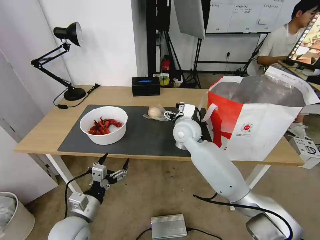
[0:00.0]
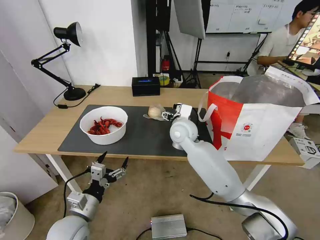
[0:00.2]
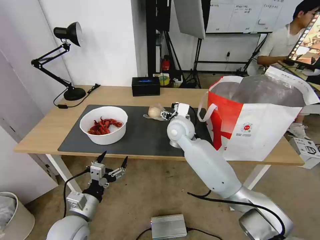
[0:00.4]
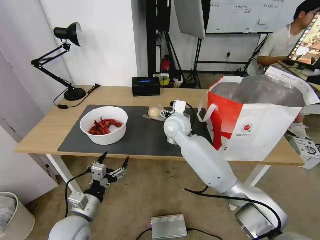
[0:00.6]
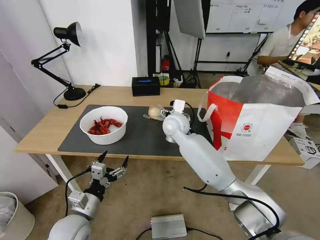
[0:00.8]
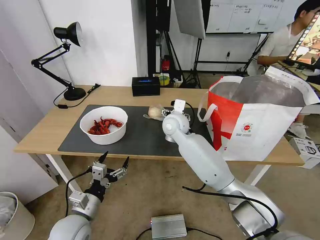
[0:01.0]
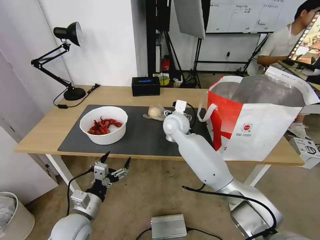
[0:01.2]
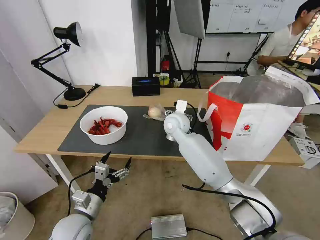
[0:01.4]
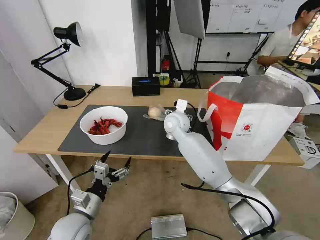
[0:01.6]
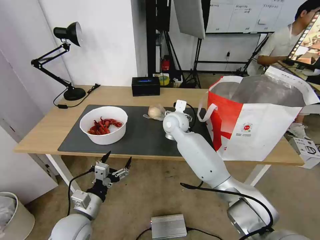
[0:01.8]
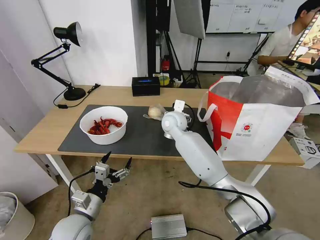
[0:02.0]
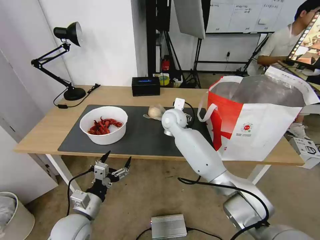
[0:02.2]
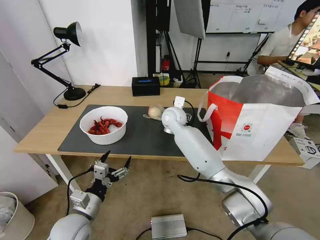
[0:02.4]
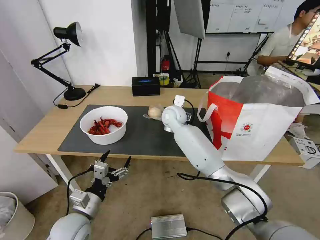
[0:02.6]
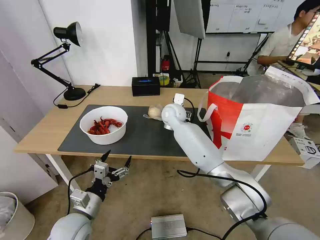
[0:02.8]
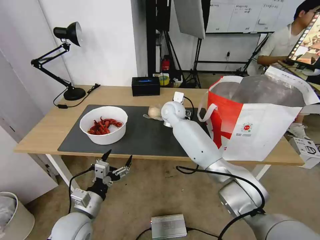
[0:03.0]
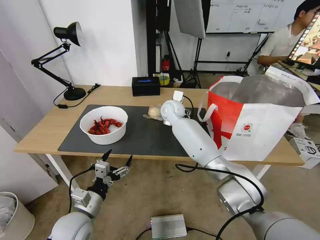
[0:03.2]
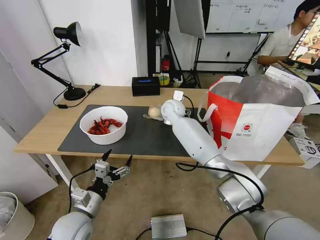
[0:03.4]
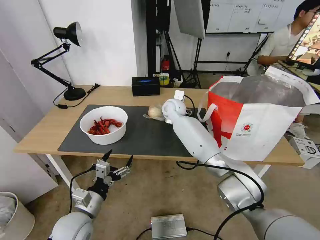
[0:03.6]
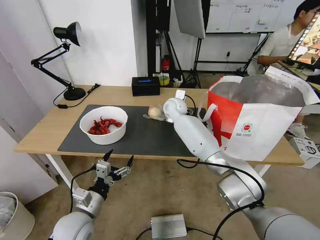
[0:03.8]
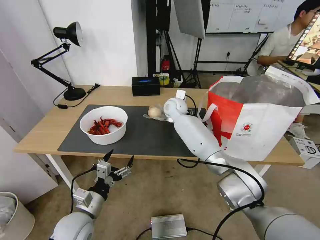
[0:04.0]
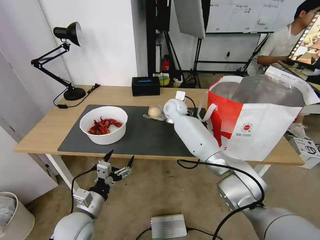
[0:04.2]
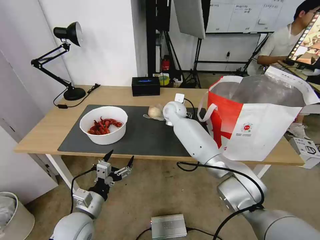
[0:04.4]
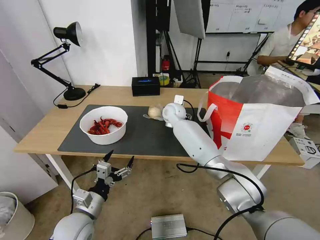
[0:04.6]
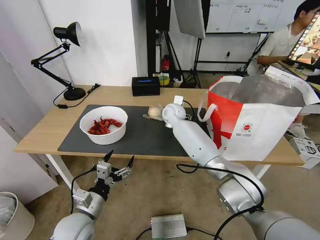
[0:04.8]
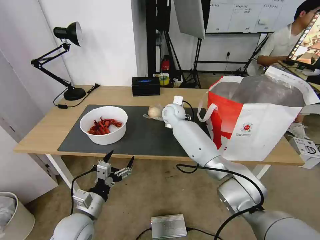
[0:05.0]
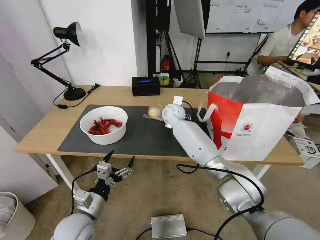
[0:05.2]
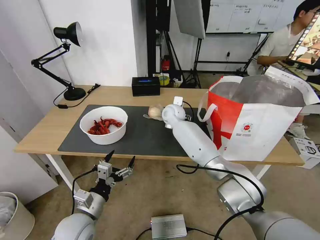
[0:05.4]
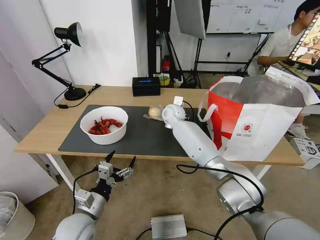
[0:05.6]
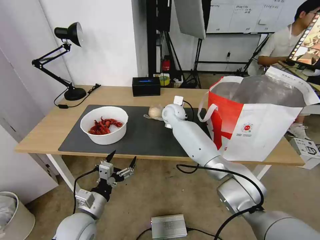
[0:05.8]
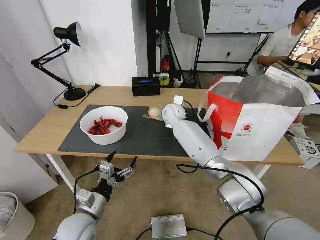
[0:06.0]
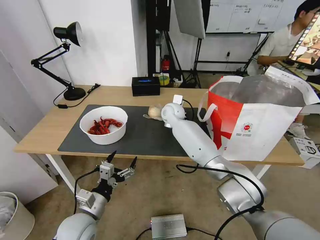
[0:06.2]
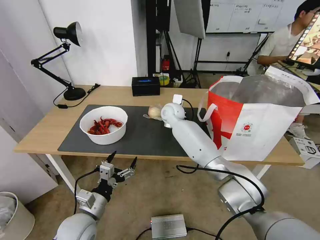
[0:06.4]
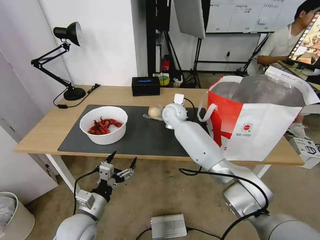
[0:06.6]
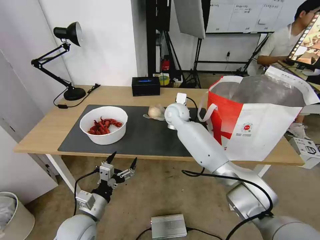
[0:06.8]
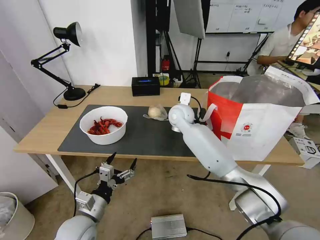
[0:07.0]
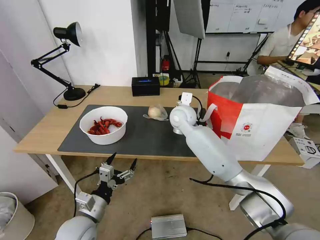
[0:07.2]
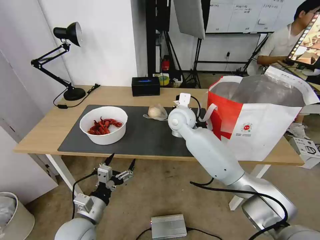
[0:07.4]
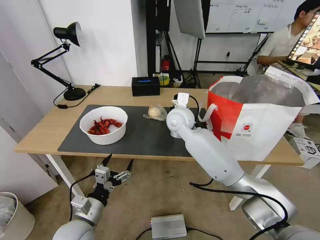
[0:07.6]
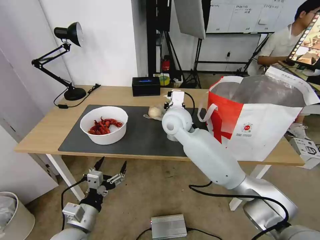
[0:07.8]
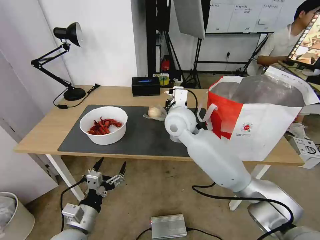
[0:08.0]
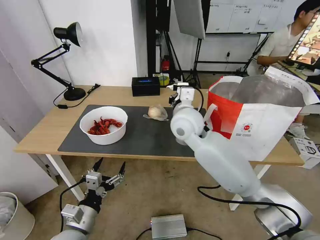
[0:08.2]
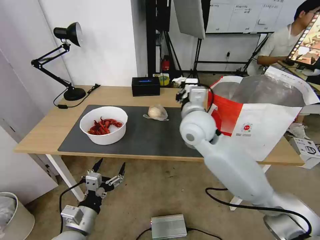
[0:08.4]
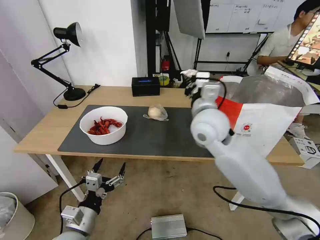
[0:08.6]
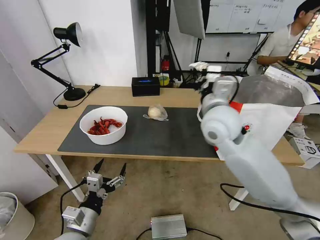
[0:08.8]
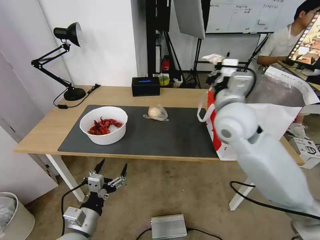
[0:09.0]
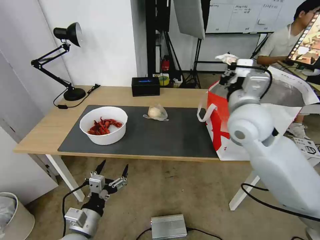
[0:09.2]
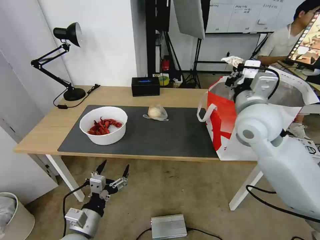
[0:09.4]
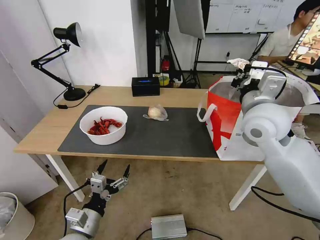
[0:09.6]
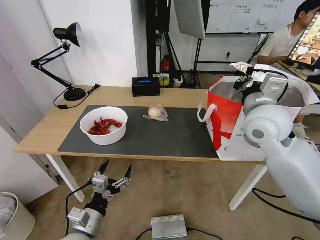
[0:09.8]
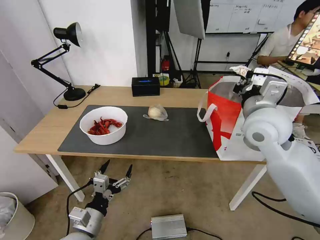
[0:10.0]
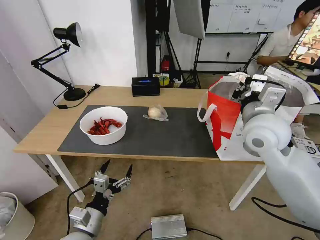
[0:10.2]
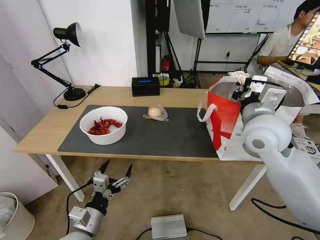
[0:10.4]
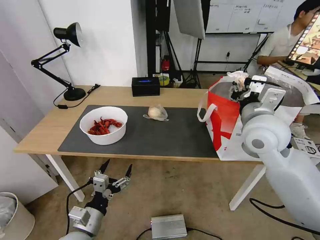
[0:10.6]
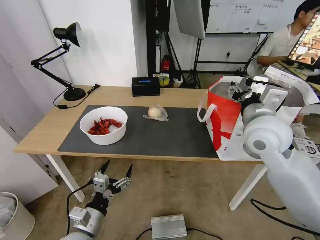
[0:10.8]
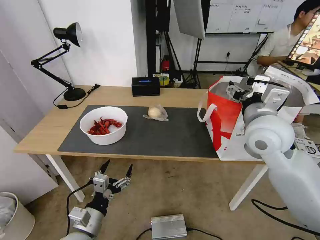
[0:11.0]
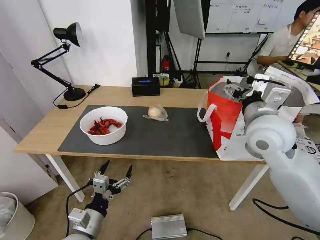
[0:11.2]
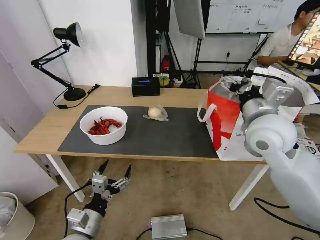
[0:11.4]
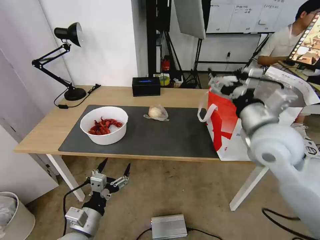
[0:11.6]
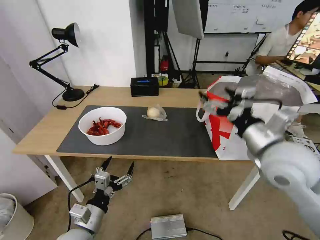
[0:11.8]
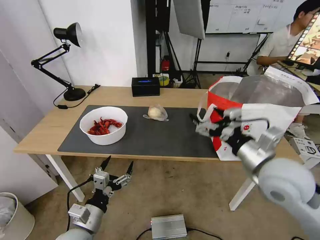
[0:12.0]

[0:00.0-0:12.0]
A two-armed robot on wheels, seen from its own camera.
Task of the whole recording: Pick up the trash from the table and place it into the takeout bag.
0:00.0 to 0:01.6: The right gripper changes place by some 5 cm.
0:01.6 to 0:03.0: The right gripper is displaced forward by some 5 cm.
0:03.0 to 0:04.4: The grippers move only a little.
0:04.4 to 0:06.0: The right gripper closes its fingers.
0:06.0 to 0:07.6: The right gripper moves backward and upward, some 10 cm.
0:07.6 to 0:09.0: The right gripper goes some 20 cm to the right, backward and upward.
0:09.0 to 0:10.4: The right gripper is displaced to the right by approximately 5 cm.
0:10.4 to 0:12.0: The right gripper heads backward and downward, covering approximately 10 cm, and opens up.

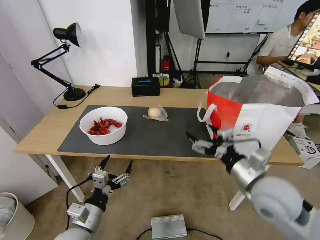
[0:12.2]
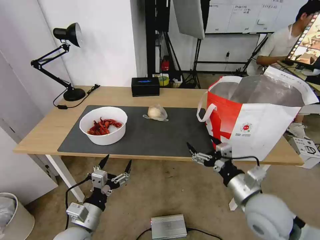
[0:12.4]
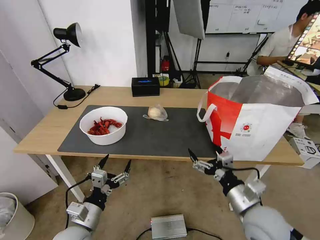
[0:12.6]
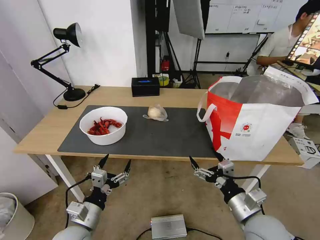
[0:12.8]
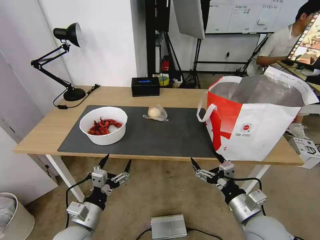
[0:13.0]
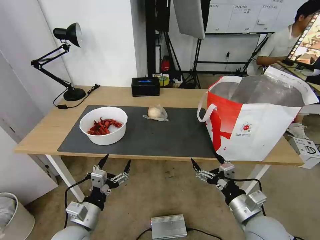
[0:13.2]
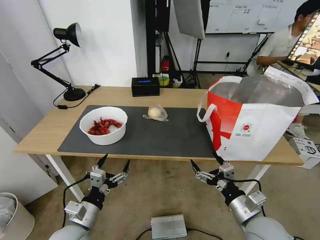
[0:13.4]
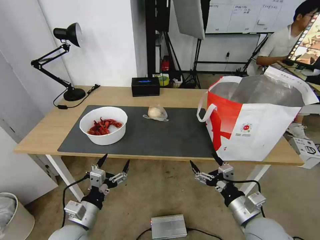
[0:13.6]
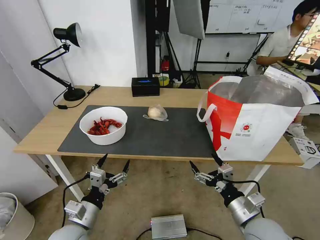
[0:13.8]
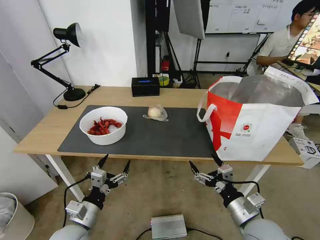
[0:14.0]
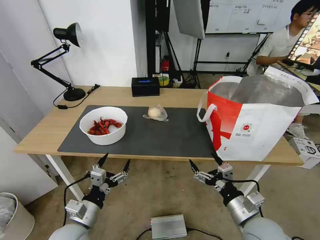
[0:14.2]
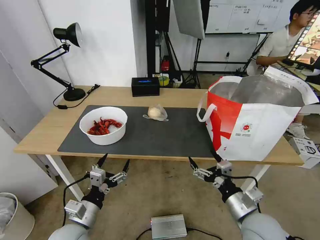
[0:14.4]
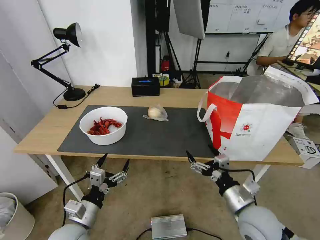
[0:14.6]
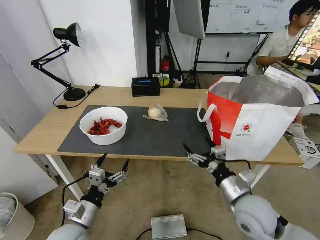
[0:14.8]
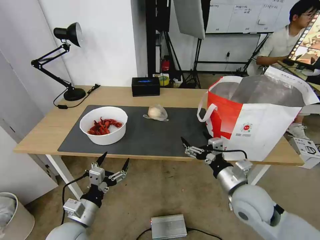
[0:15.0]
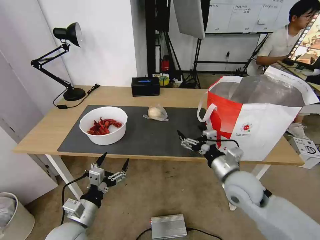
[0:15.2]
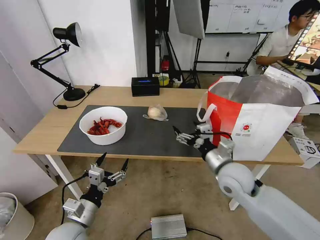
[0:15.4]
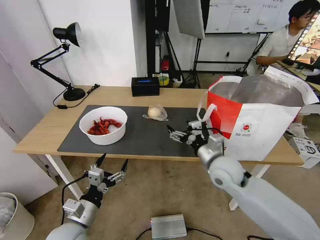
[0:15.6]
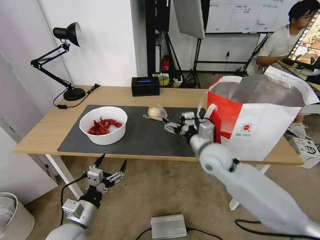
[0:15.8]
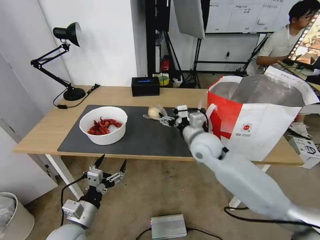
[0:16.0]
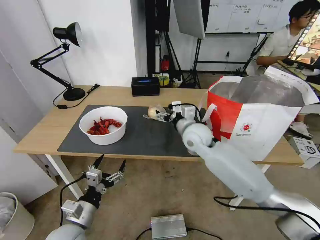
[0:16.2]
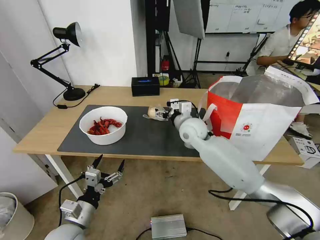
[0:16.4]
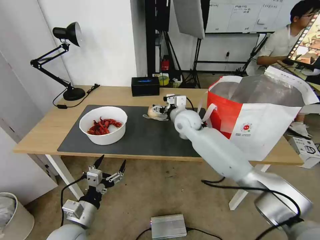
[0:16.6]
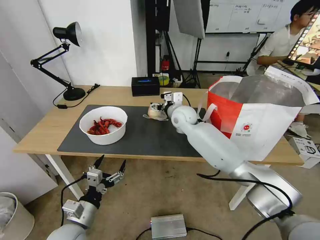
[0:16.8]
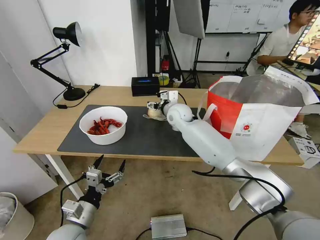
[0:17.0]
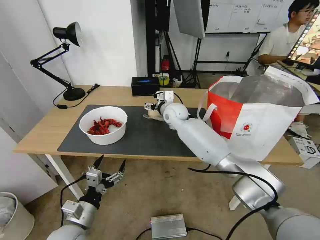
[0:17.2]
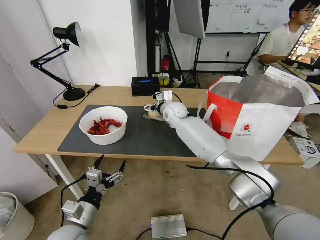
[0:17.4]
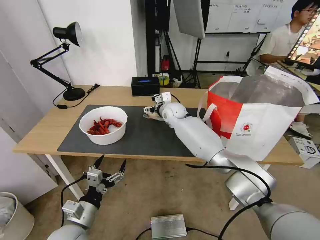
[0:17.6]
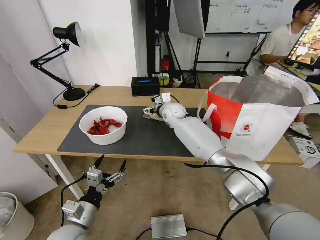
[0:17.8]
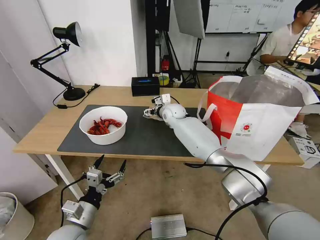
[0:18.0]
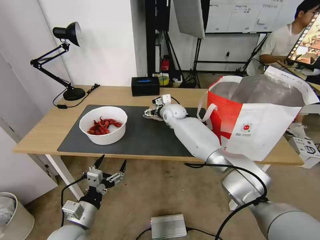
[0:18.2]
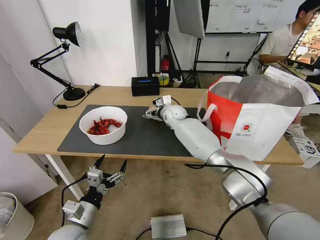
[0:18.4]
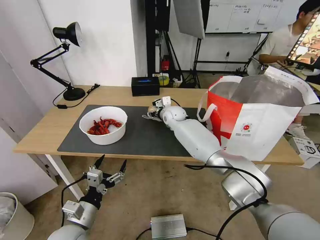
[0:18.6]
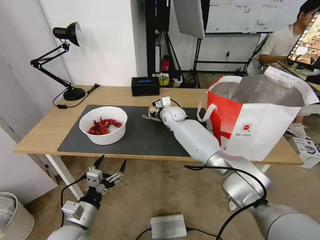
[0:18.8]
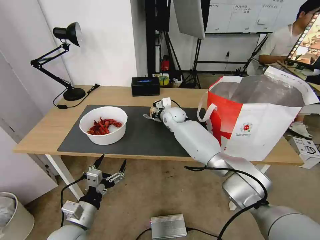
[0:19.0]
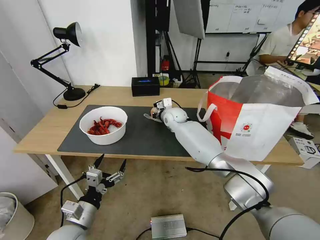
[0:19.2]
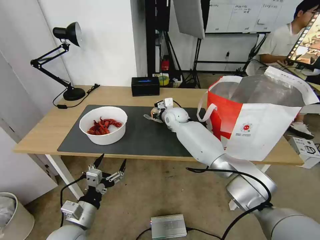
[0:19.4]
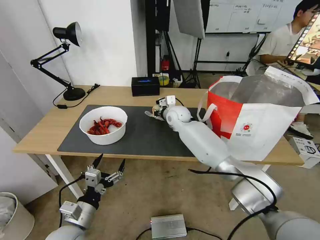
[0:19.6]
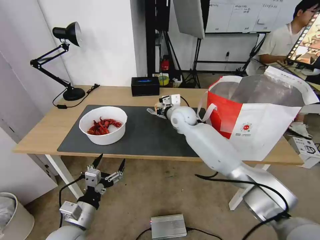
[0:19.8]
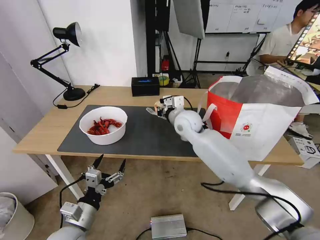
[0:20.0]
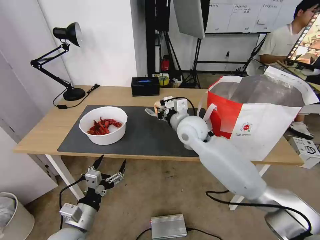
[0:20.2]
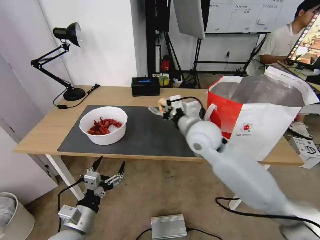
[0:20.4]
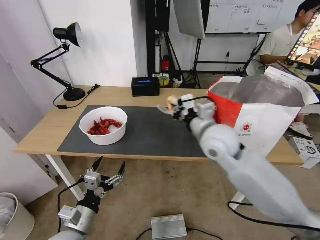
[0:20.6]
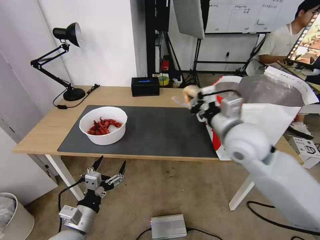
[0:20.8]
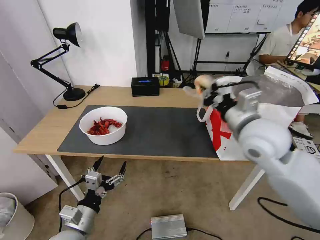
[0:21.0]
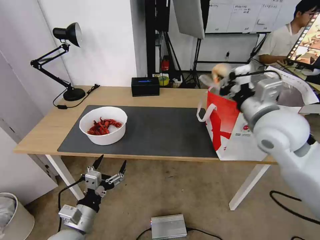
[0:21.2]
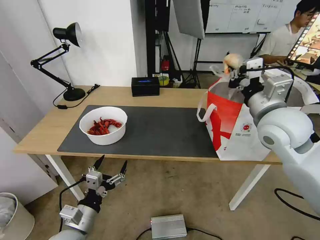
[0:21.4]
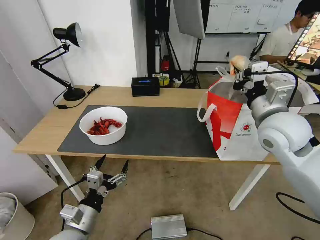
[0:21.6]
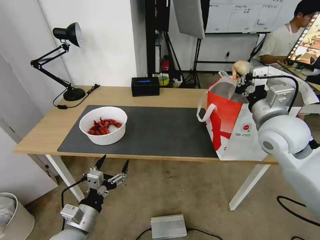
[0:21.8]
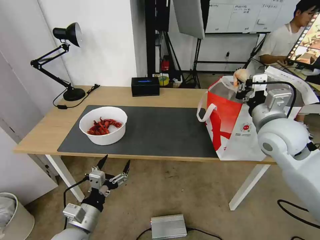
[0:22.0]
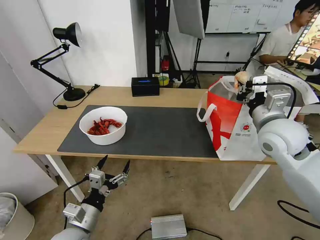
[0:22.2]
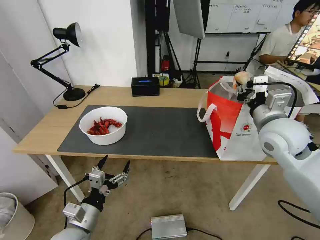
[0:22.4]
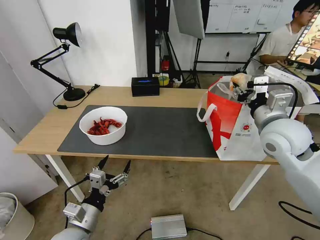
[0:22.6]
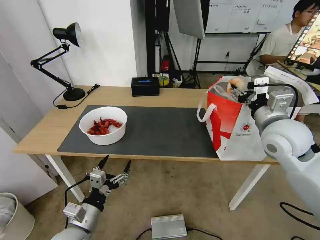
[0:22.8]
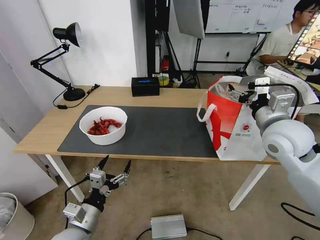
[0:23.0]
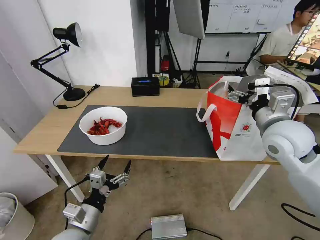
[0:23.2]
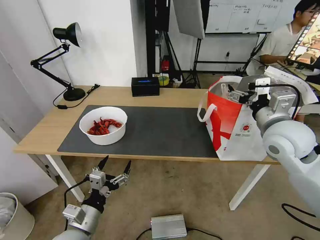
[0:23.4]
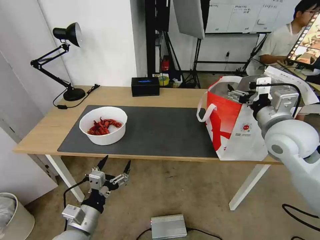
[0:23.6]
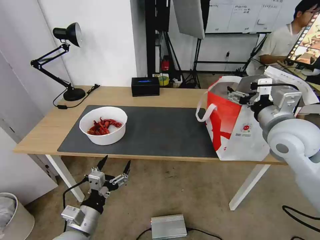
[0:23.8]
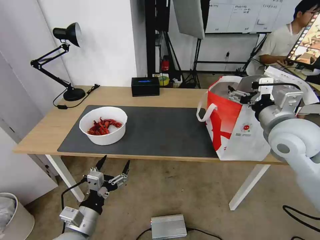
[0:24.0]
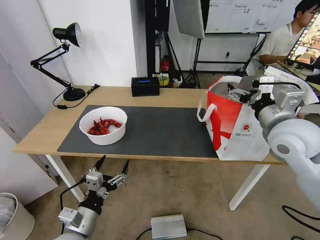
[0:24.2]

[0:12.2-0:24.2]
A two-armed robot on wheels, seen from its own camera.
Task of the whole recording: Pick up the trash from the table and place it into the takeout bag.
0:12.2 to 0:13.8: The right gripper heads downward and backward, covering approximately 15 cm.
0:13.8 to 0:15.2: The right gripper goes approximately 10 cm forward and upward.
0:15.2 to 0:16.6: The right gripper shifts about 25 cm forward and to the left.
0:16.6 to 0:18.2: The right gripper heads forward, covering approximately 10 cm.
0:18.2 to 0:19.8: The right gripper heads backward, covering about 5 cm, and closes its fingers.
0:19.8 to 0:21.2: The right gripper travels backward, to the right and upward by approximately 30 cm.
0:21.2 to 0:22.6: The right gripper shifts by about 5 cm, and opens its fingers.
0:22.6 to 0:24.2: The right gripper opens up.
